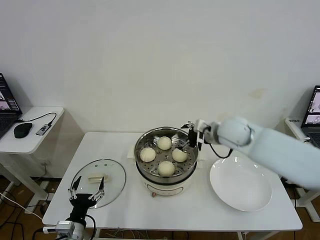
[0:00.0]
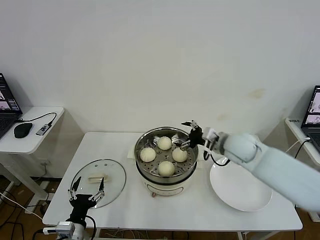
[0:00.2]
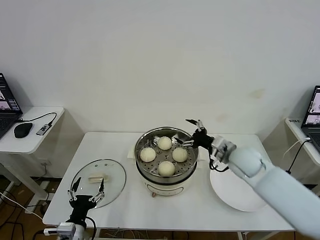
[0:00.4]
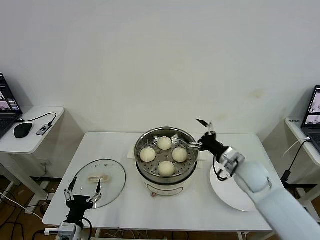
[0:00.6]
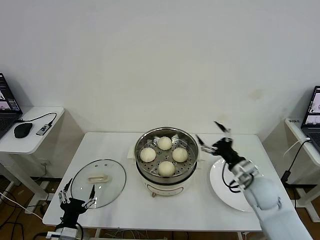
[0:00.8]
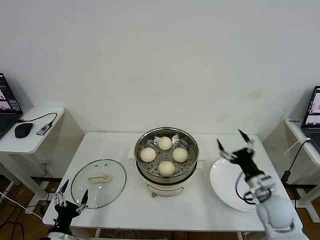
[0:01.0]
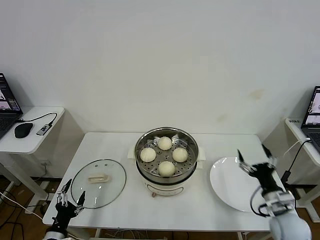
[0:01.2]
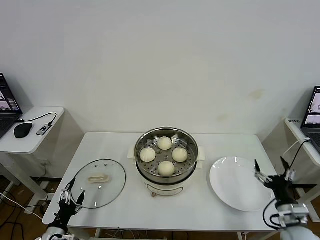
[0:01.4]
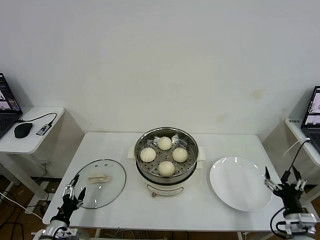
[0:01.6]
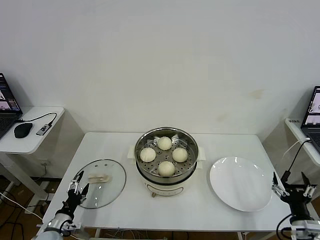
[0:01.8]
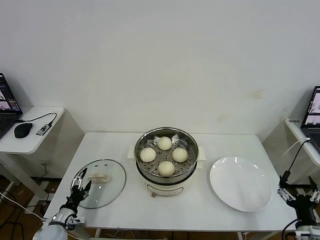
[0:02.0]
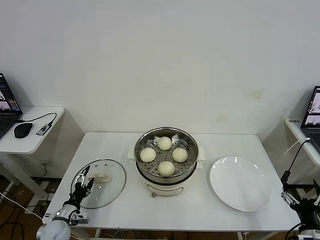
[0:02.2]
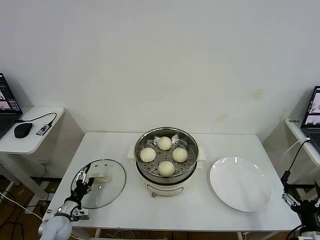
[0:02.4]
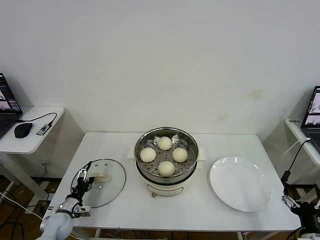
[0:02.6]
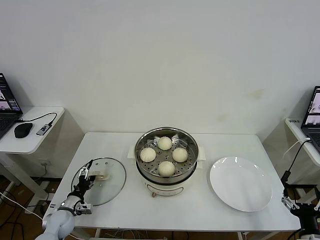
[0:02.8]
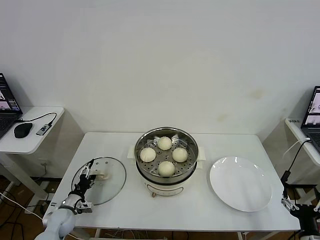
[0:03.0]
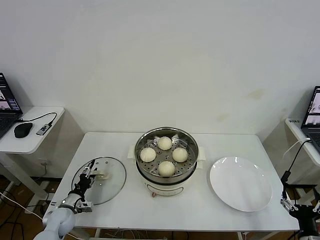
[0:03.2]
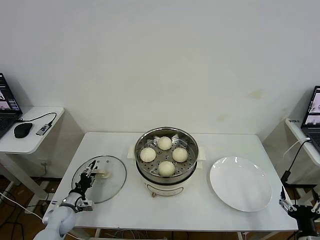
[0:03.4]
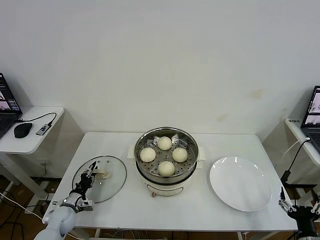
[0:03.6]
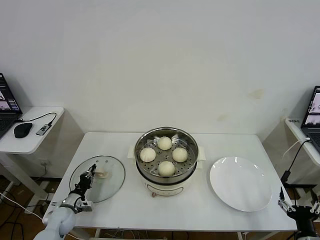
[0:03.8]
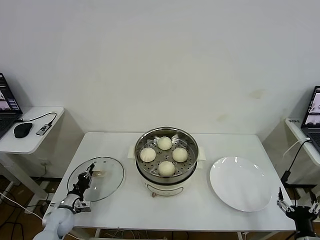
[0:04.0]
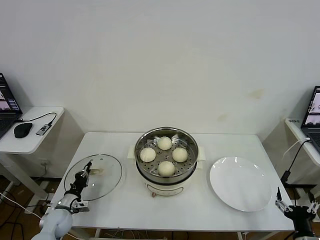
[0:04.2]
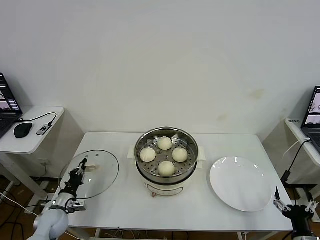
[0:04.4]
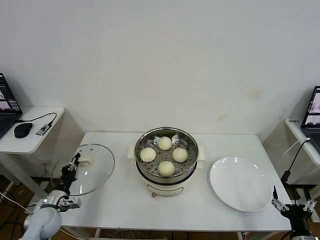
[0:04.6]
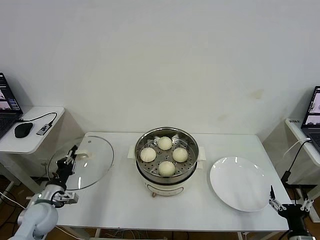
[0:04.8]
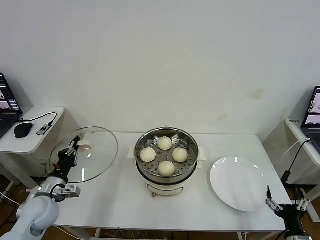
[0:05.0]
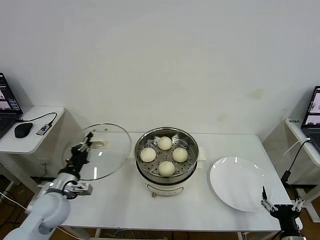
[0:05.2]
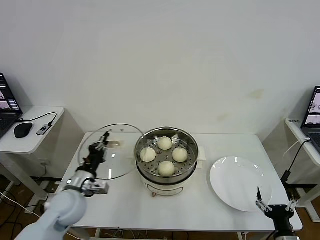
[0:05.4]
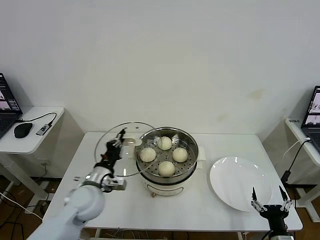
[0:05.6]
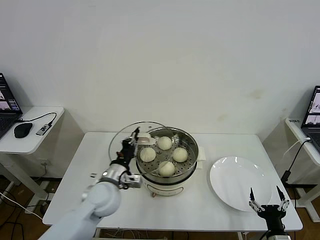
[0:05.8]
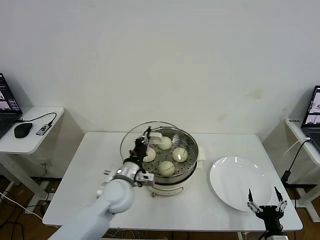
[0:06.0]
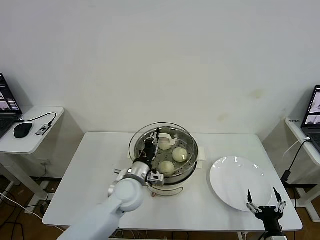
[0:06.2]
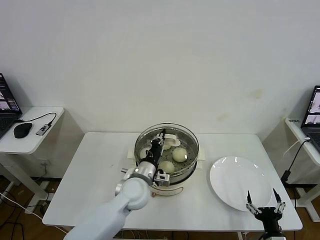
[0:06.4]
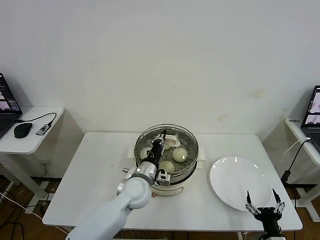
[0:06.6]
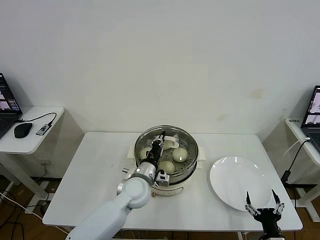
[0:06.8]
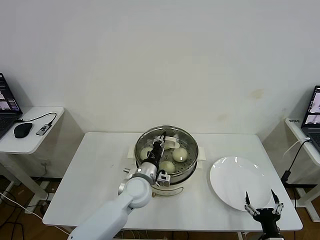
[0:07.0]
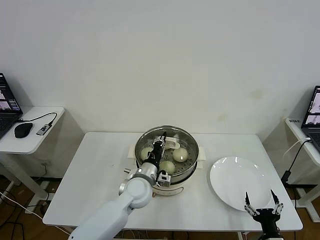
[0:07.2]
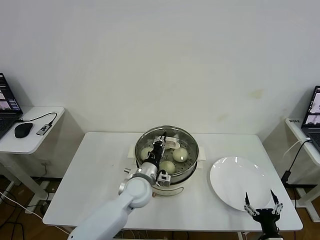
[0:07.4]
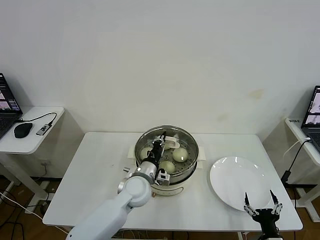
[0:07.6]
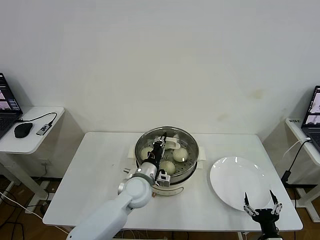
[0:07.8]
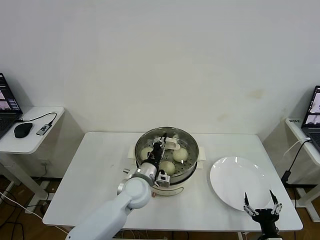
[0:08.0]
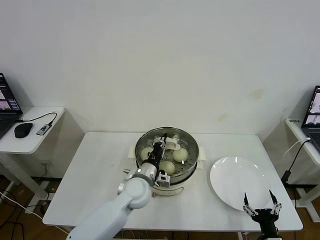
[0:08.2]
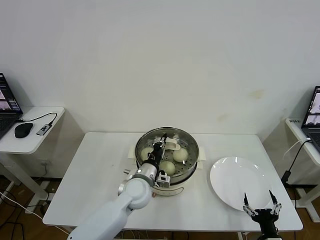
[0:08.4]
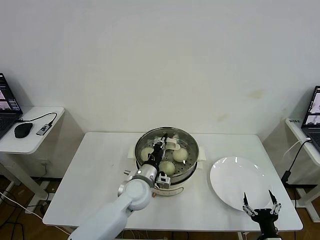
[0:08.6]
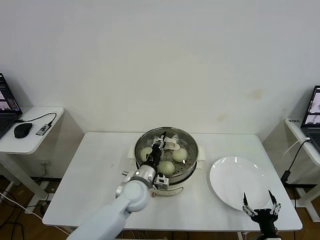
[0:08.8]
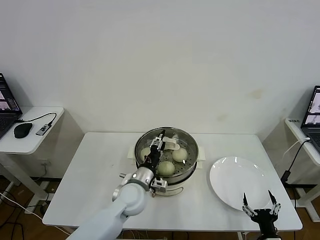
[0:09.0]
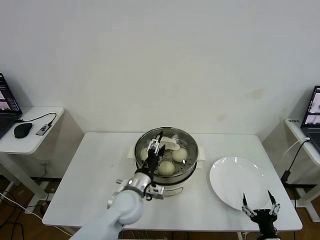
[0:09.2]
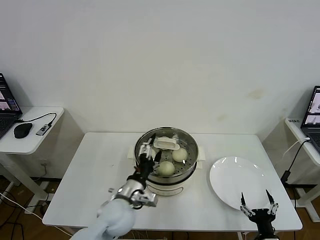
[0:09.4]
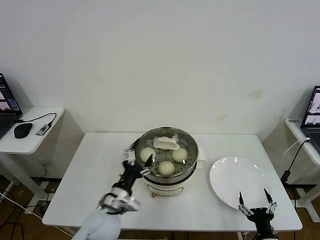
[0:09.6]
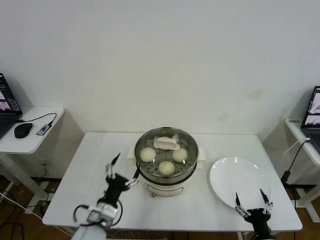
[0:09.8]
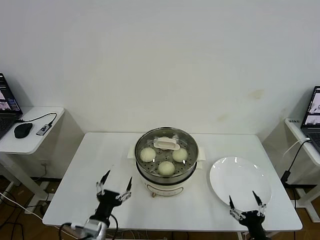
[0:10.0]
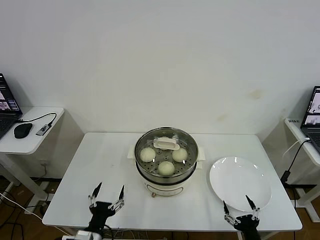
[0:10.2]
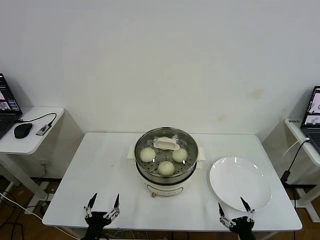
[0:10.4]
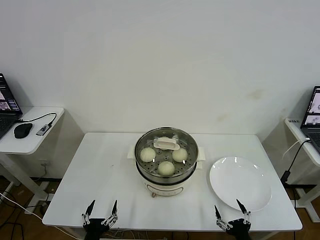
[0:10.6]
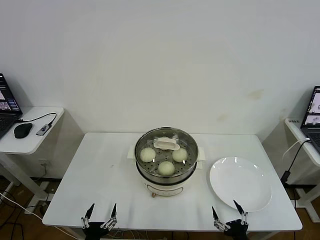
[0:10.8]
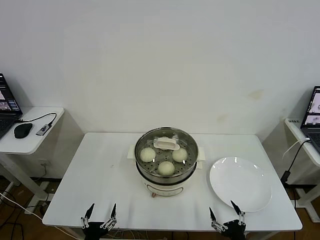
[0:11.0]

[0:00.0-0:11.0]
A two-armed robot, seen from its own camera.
Task of the whole recording: take steamed baozi put them in steamer then cover it.
Step, 0:00.0 to 0:04.0: Grasp the pot lid with left gripper.
Step, 0:04.2 to 0:09.4: Place the pot lid on the steamer with left gripper.
0:00.0 to 0:01.6: The left gripper moves to the left and downward, some 10 cm. The right gripper travels backward, downward and to the right by some 40 cm.
0:01.6 to 0:03.2: The left gripper moves forward, some 10 cm. The right gripper travels backward by some 5 cm.
0:03.2 to 0:04.8: The left gripper travels upward by roughly 10 cm, and closes up.
0:04.8 to 0:06.2: The left gripper heads to the right, covering some 30 cm; the right gripper moves approximately 5 cm.
0:06.2 to 0:07.8: The grippers make only small movements.
0:07.8 to 0:09.4: The left gripper moves backward, some 5 cm, and opens.
0:09.4 to 0:11.0: The right gripper is displaced to the left by roughly 5 cm. Meanwhile the left gripper goes approximately 25 cm backward, to the left and downward.

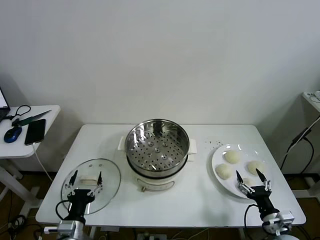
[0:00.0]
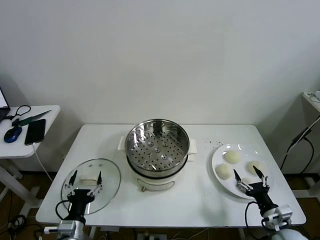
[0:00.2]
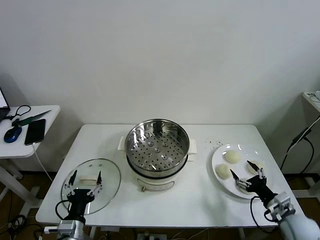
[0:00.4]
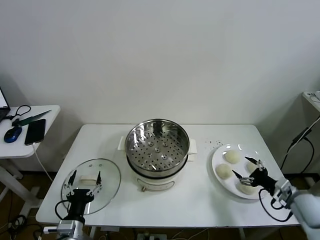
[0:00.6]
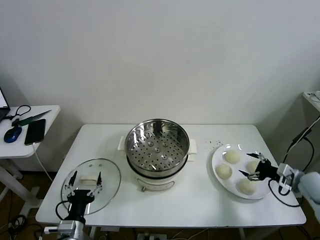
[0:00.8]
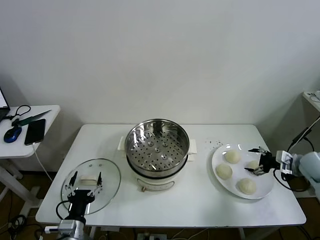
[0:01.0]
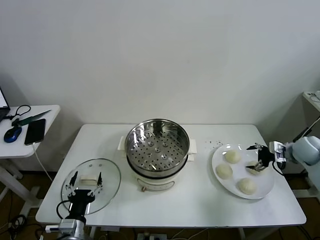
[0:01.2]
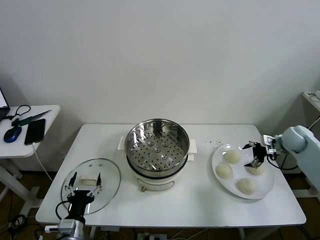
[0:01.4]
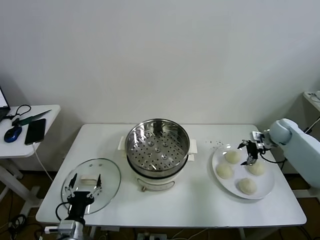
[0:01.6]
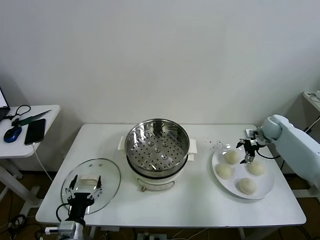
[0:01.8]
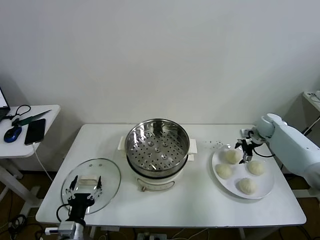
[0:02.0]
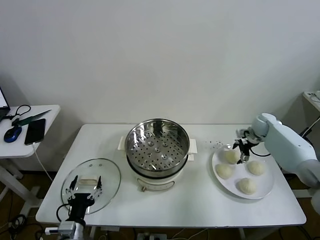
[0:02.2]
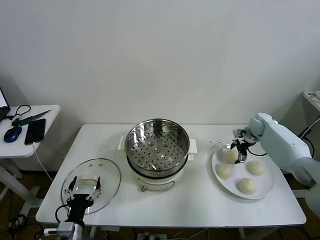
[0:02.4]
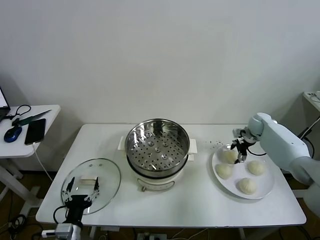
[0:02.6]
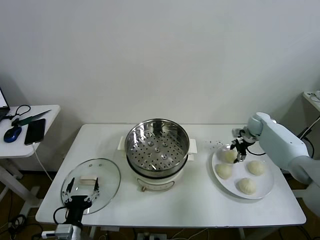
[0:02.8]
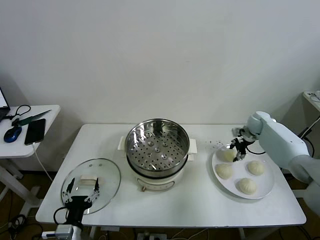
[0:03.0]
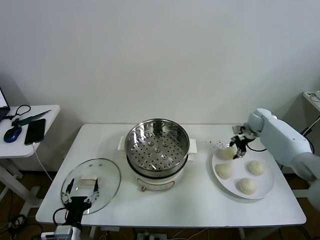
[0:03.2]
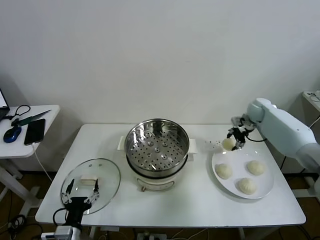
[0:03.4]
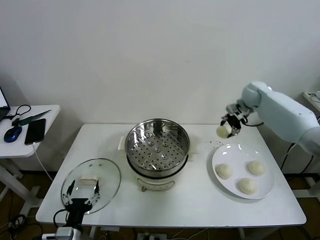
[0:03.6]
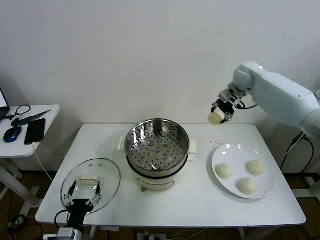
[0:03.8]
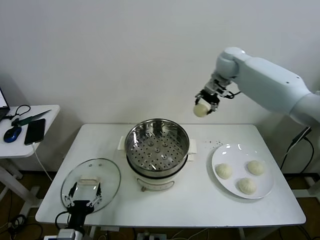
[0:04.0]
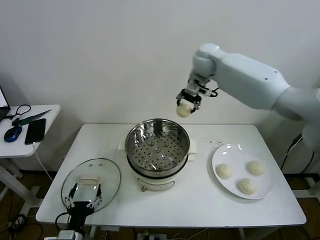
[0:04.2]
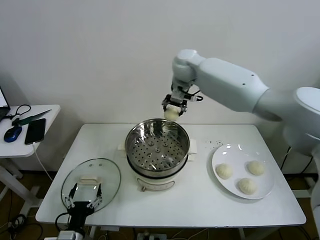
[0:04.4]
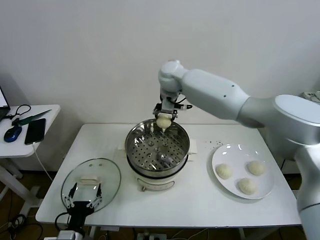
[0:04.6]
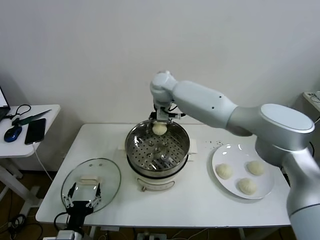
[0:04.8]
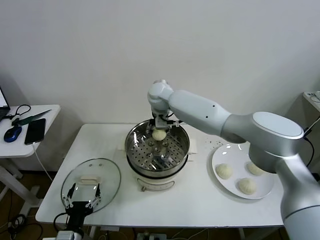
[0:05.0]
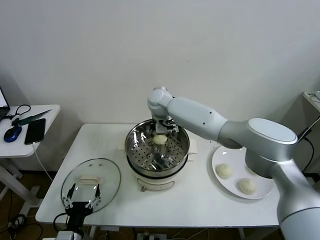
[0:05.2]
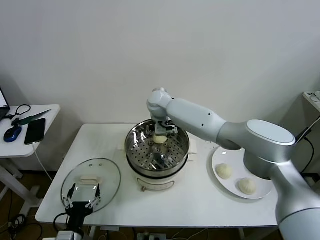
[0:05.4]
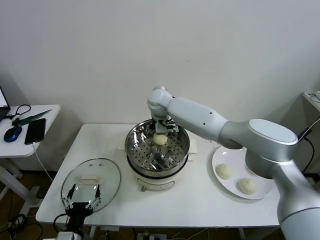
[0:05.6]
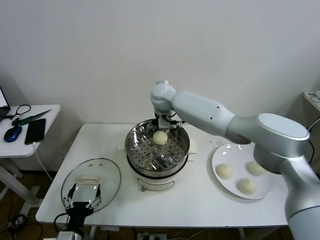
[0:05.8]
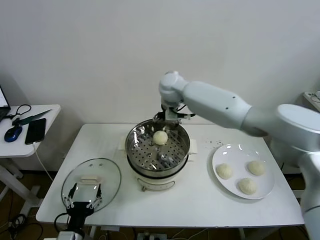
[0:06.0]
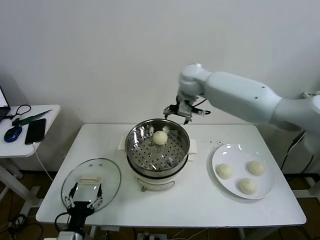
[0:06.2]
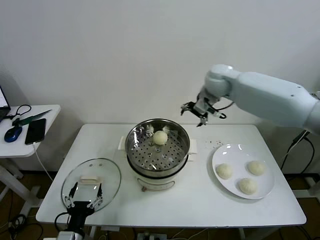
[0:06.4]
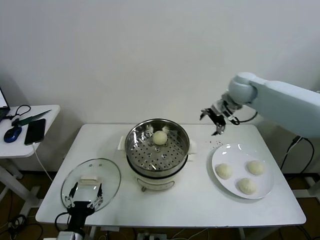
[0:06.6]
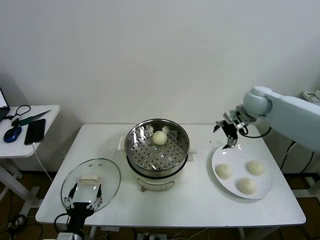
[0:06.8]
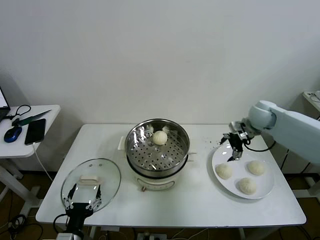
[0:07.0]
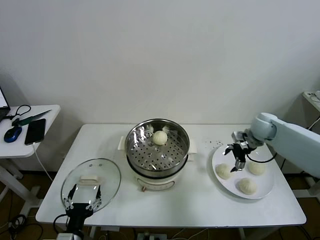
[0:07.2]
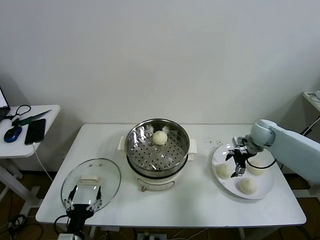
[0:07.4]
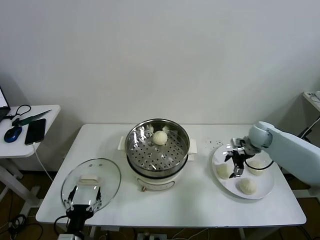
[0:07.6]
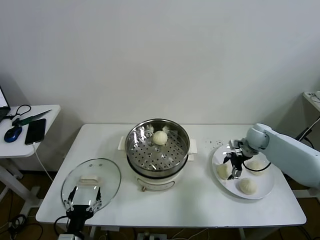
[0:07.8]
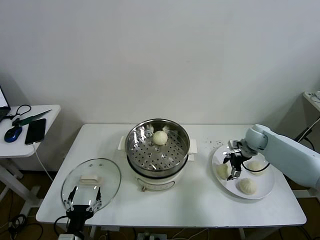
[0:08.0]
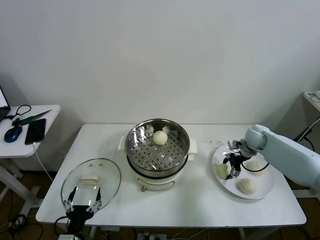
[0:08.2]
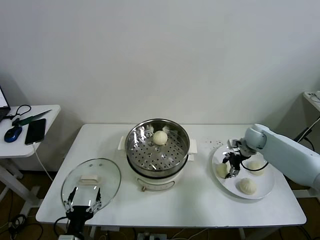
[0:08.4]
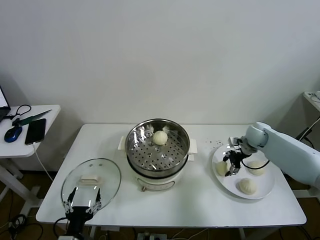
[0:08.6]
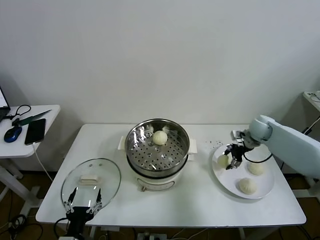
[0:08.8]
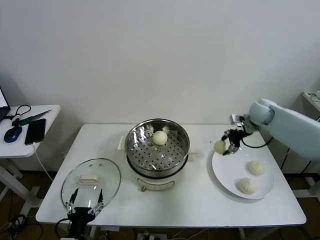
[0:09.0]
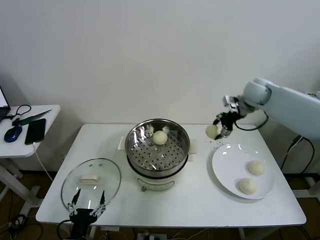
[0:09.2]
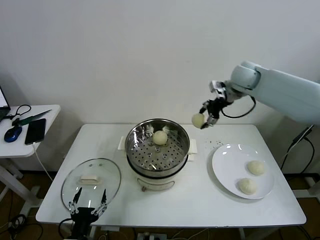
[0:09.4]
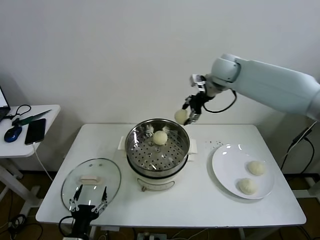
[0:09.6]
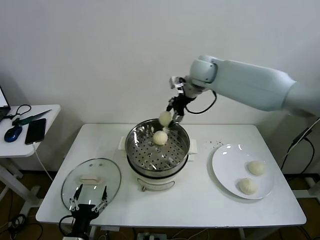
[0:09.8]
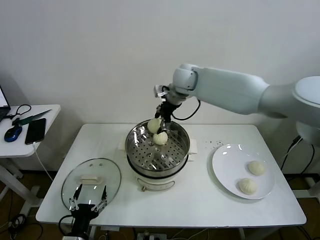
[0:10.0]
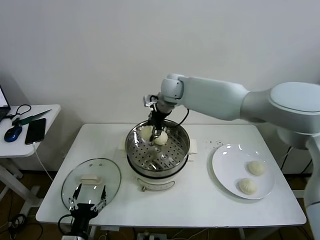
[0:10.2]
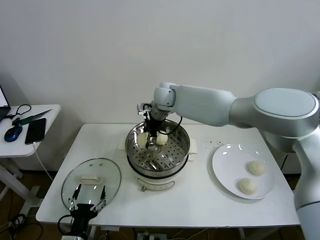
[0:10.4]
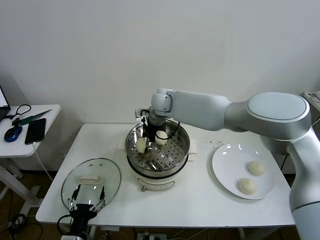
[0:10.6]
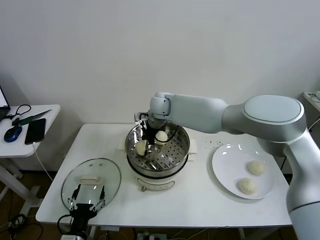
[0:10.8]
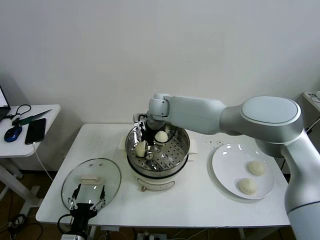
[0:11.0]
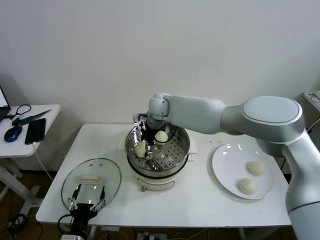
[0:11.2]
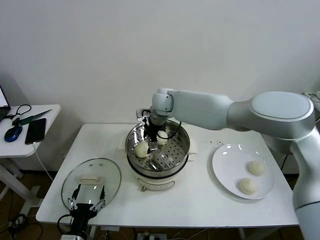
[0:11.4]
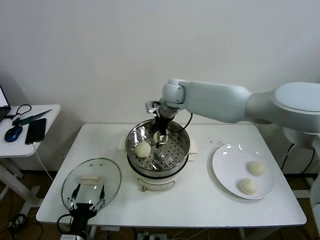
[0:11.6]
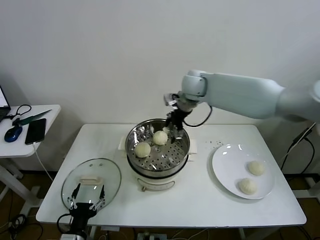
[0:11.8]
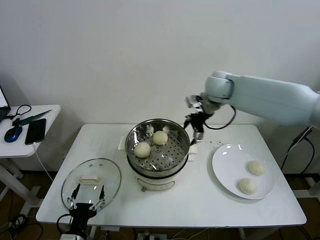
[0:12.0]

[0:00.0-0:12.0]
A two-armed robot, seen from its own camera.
Task of the whole recording: take steamed baozi put them in steamer then cover it.
Step, 0:00.0 to 0:02.8: Grasp the baozi in the plate with right gripper.
Step, 0:03.0 to 0:05.4: Place the baozi on the steamer with right gripper.
Step, 0:05.6 to 0:08.4: Grasp the baozi in the plate with right gripper.
Step, 0:08.6 to 0:11.4: Place the baozi on the steamer with right gripper.
0:01.6 to 0:03.0: The right gripper moves forward, approximately 5 cm, and closes its fingers.
0:03.0 to 0:04.4: The right gripper heads to the left and upward, covering roughly 40 cm.
0:04.4 to 0:06.0: The right gripper moves some 10 cm downward and comes back, and opens up.
0:06.0 to 0:07.6: The right gripper heads to the right and downward, covering roughly 40 cm.
0:07.6 to 0:09.0: The right gripper moves upward, roughly 10 cm, and closes its fingers.
0:09.0 to 0:10.4: The right gripper moves to the left, some 35 cm.
0:10.4 to 0:12.0: The right gripper travels to the right by about 20 cm, and opens.
